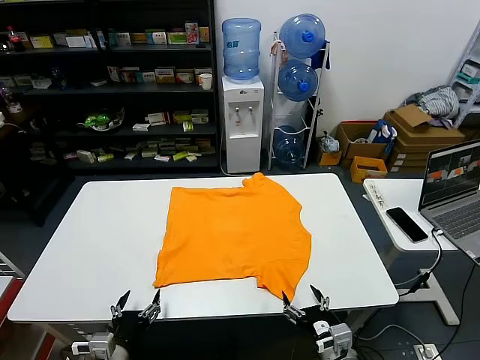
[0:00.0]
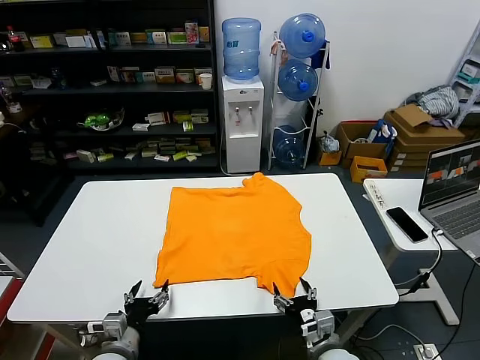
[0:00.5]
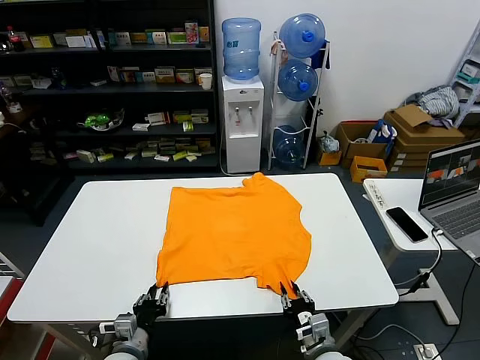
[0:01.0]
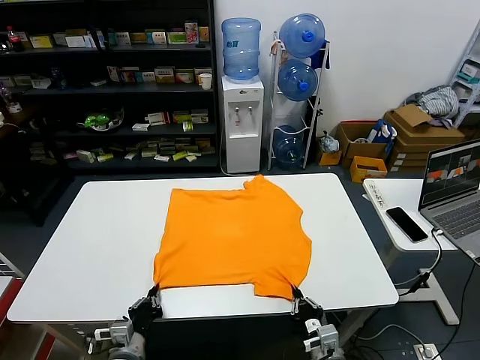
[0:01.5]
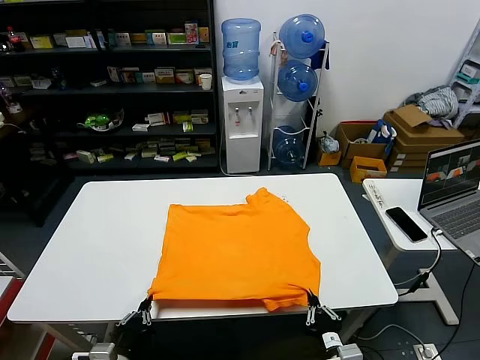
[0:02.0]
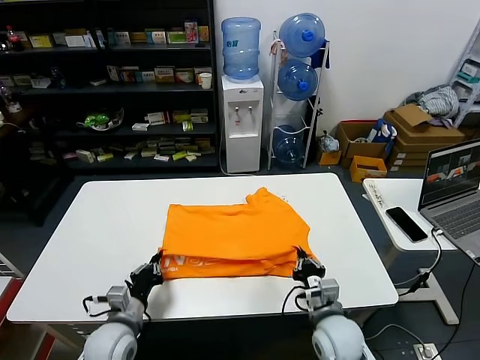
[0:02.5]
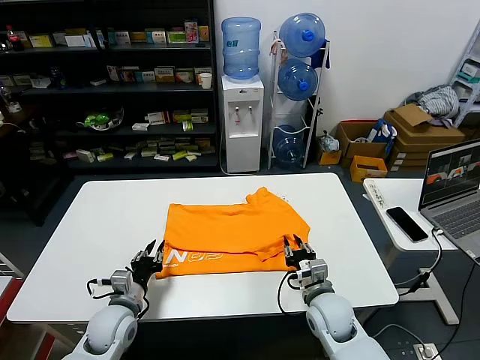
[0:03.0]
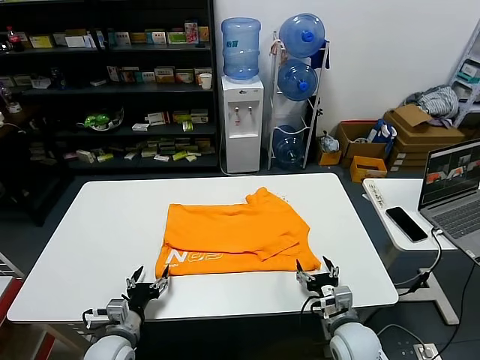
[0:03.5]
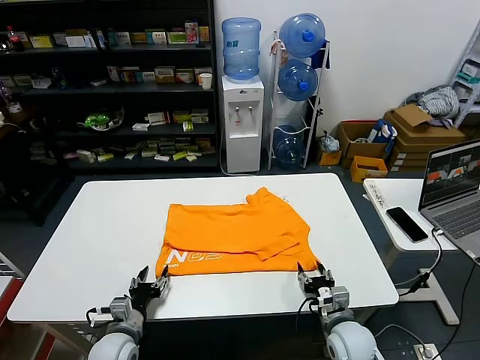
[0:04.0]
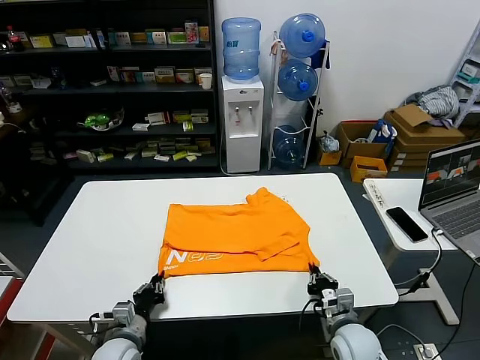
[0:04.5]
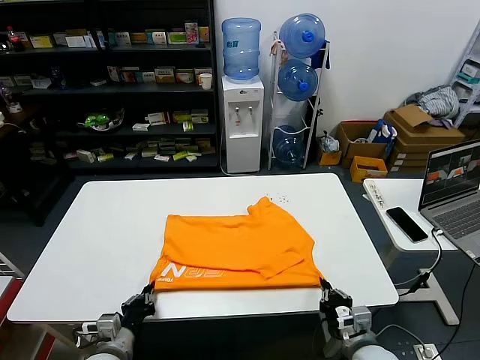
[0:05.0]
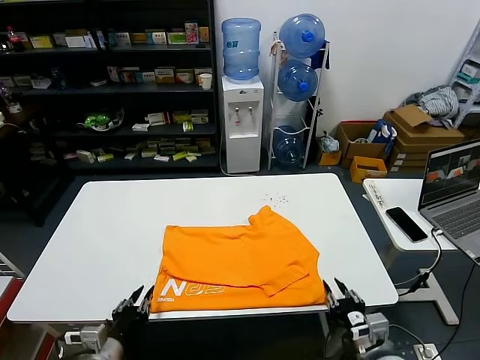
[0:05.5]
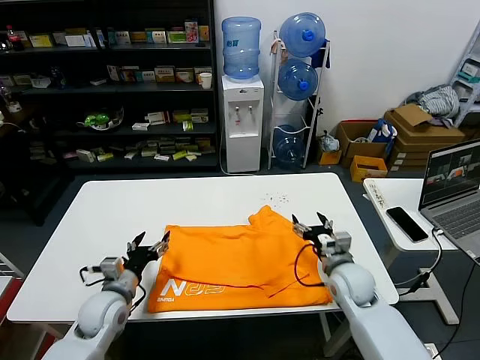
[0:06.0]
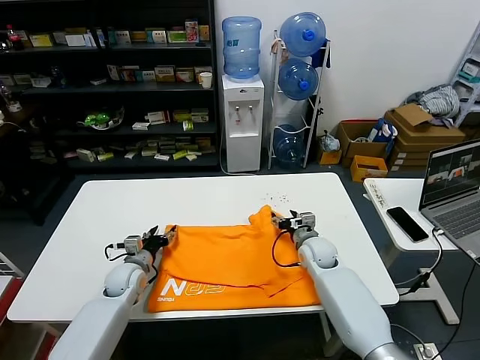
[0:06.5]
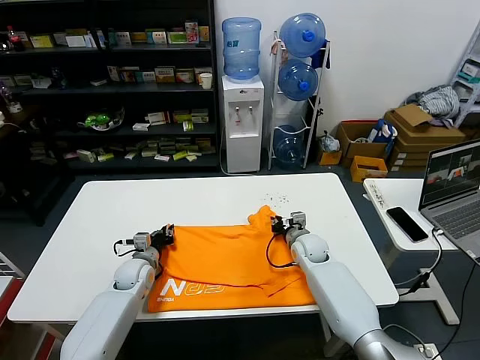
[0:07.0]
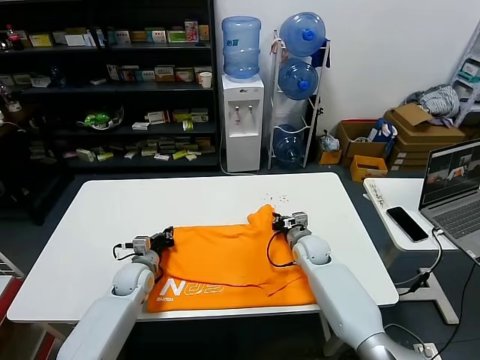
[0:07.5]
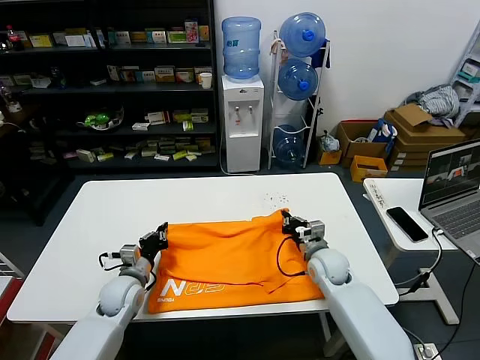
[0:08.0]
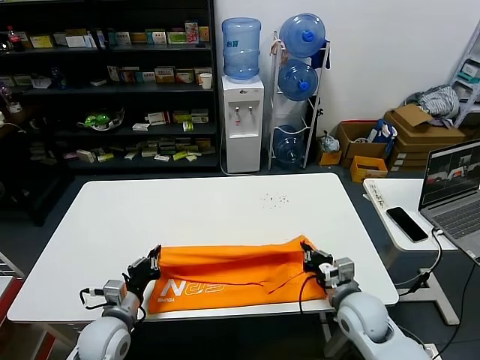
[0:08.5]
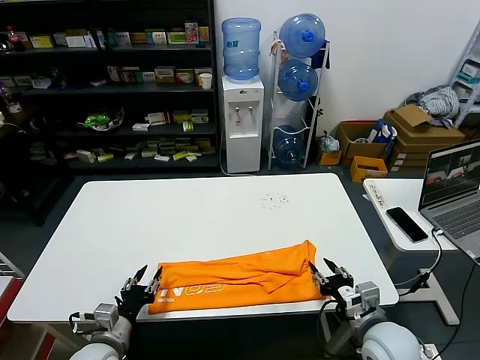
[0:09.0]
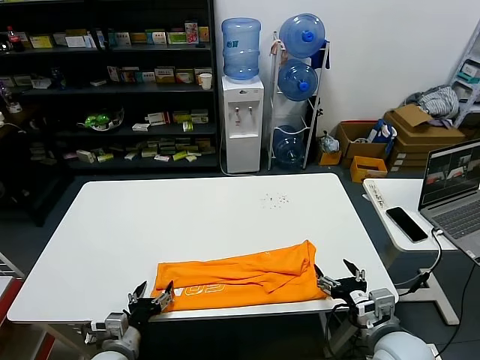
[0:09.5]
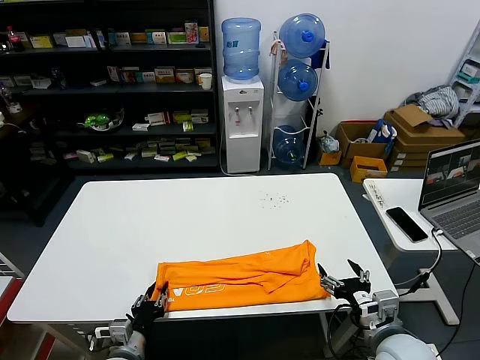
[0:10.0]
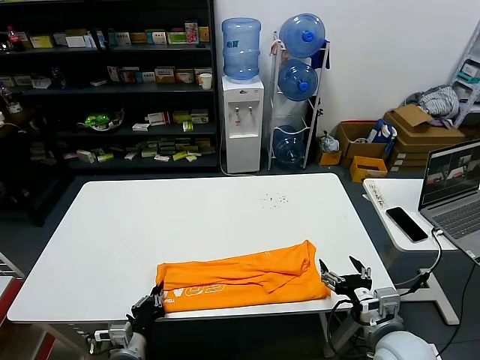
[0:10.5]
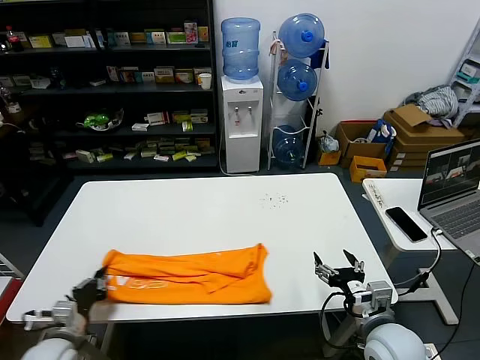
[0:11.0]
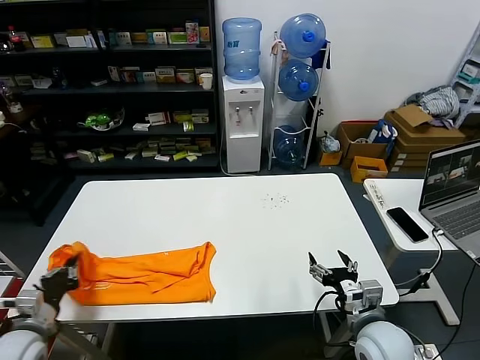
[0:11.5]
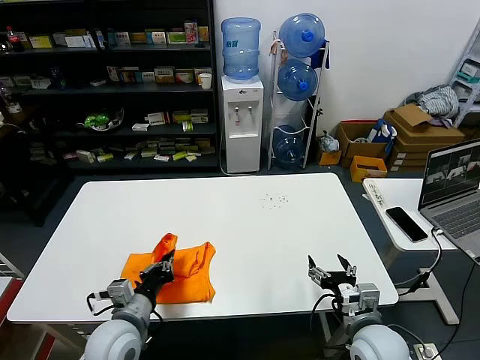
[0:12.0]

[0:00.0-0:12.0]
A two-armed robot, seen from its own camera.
Task of the whole recording: fold and organize the clothes.
Step, 0:00.0 to 0:01.0: use both grippers simultaneously to clamp the lower edge of the clothing fabric.
Step, 0:01.5 to 0:03.0: use both grippers to drag the lower edge of the fabric forward and fold it over the upper edge.
Step, 0:03.5 to 0:05.0: Drag the clothes downward with both gripper.
Step, 0:05.5 to 0:07.0: use both grippers simultaneously to clamp the upper edge of the clothing fabric.
Step, 0:07.5 to 0:08.5: use both grippers to drag the upper edge of the fabric backward and fold it over the lower edge.
Step, 0:09.0 to 0:10.0: use the left gripper to clamp the left edge of the fabric.
0:02.0 to 0:04.0: The grippers both shift forward and downward by approximately 15 cm. The left gripper opens; the right gripper opens its fingers.
0:04.0 to 0:06.0: The right gripper shifts approximately 15 cm forward and upward, and opens up, while the left gripper is displaced upward and forward by about 10 cm, and closes and opens again.
0:06.0 to 0:08.0: The left gripper is displaced forward by some 5 cm, and closes. The right gripper moves approximately 10 cm forward and comes back, and closes up.
0:08.0 to 0:10.0: Both grippers move backward, approximately 20 cm. The left gripper opens up. Meanwhile the right gripper opens up.
0:10.0 to 0:12.0: The left gripper travels upward by approximately 10 cm, travels to the left and back again, roughly 15 cm each way, and closes up.

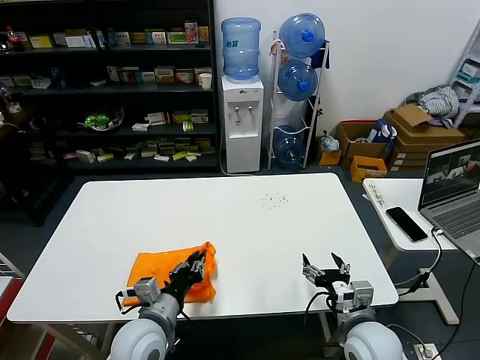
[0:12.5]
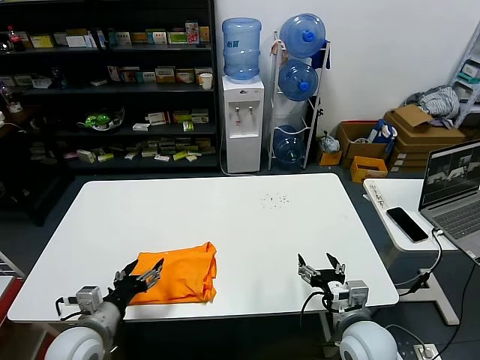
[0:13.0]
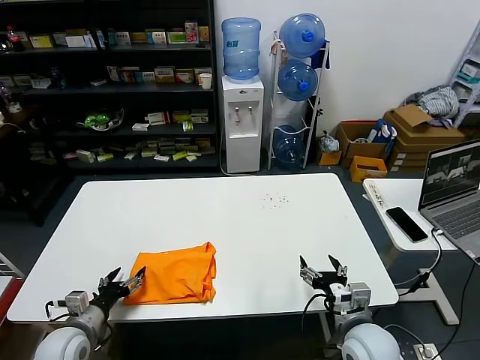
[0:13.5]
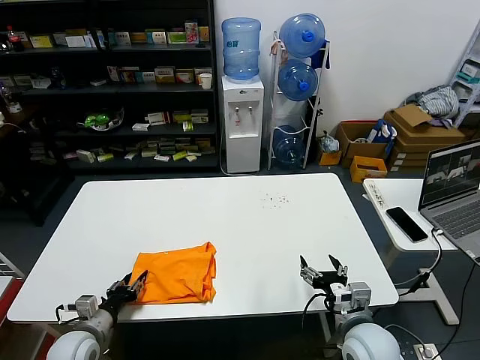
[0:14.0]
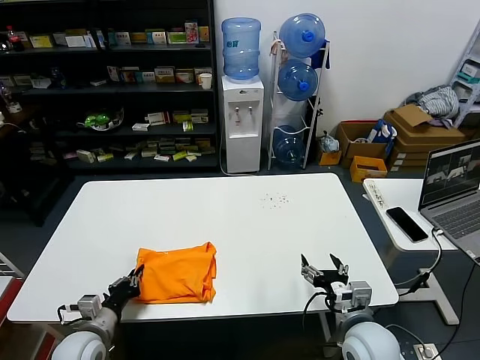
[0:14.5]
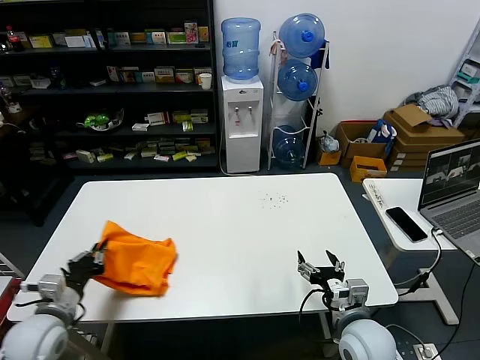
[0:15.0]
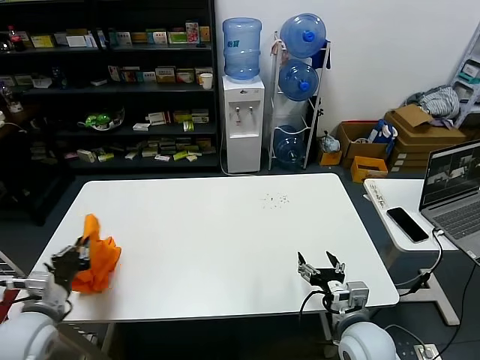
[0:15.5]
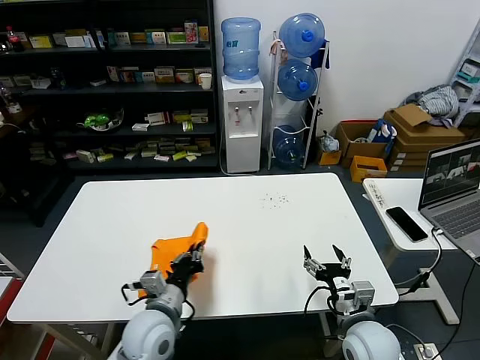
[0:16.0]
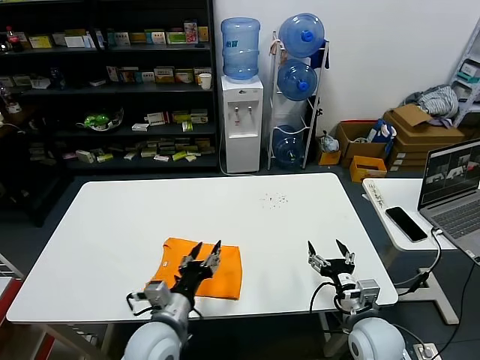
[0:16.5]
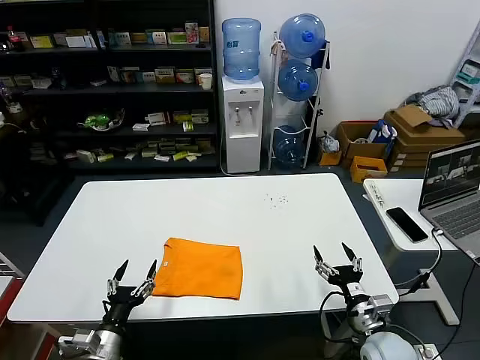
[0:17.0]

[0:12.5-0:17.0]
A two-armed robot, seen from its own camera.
Task of the whole recording: fold and organize the clothes.
Step, 0:13.0 to 0:16.0: Flip the folded clothes over with left gripper.
0:12.5 to 0:14.5: The left gripper heads to the left and downward, covering some 20 cm, and opens, then closes again.
0:14.5 to 0:17.0: The left gripper goes left and right, roughly 30 cm each way, reversing 2 times, and opens, while the right gripper ends up roughly 5 cm from where it was.
